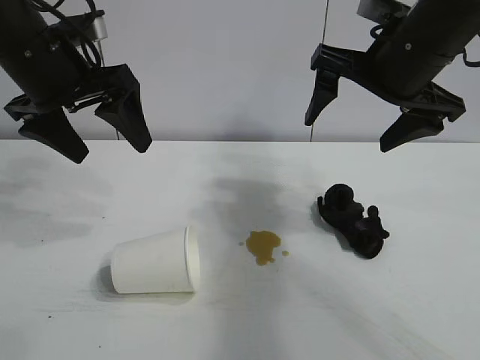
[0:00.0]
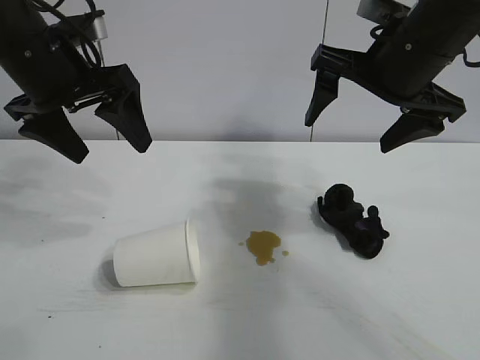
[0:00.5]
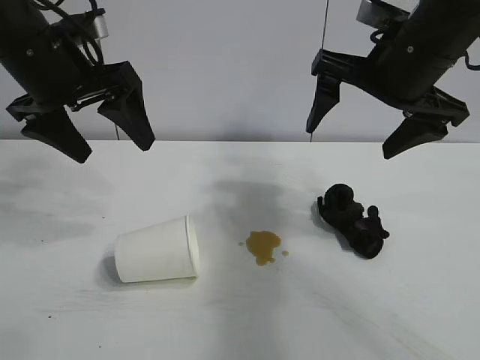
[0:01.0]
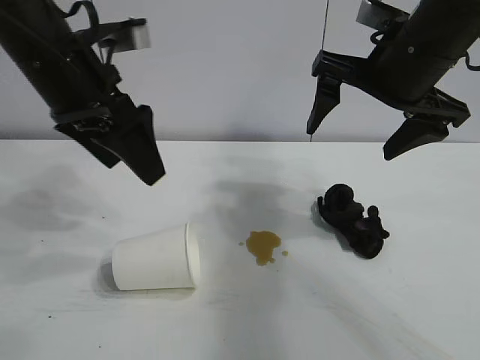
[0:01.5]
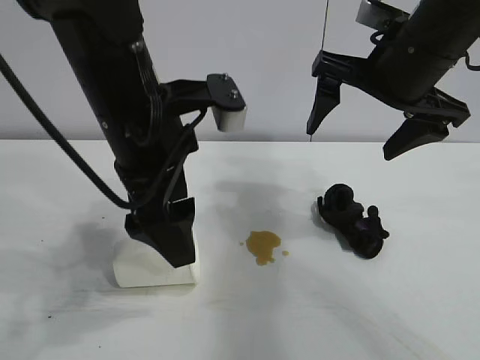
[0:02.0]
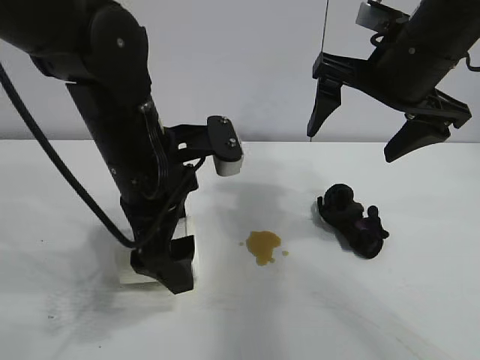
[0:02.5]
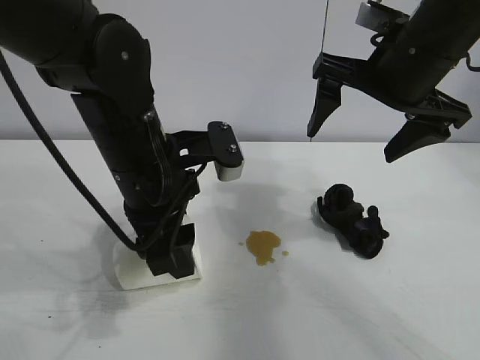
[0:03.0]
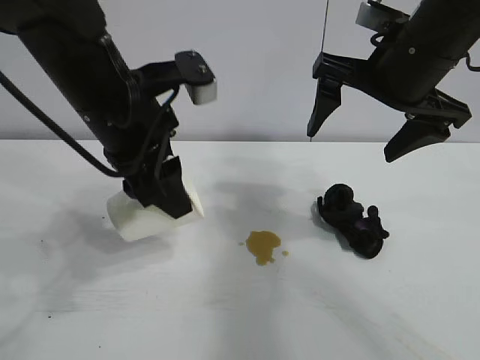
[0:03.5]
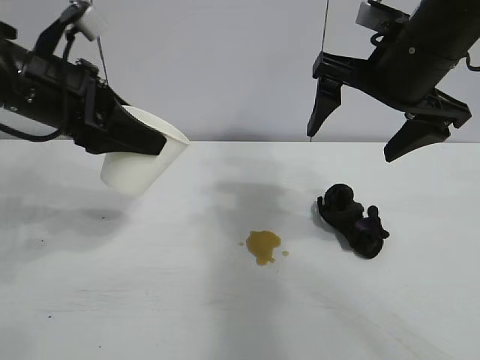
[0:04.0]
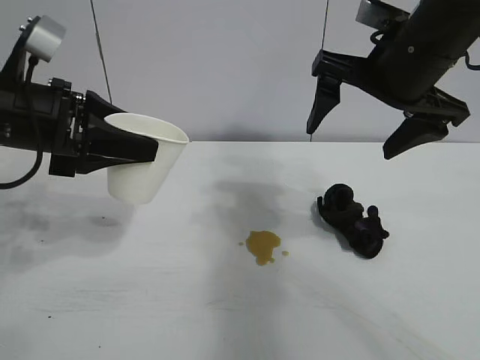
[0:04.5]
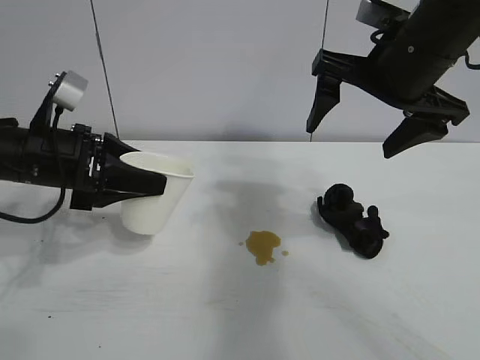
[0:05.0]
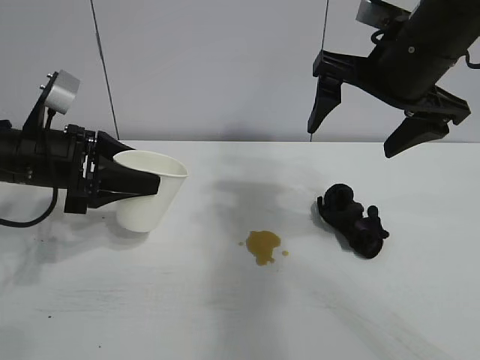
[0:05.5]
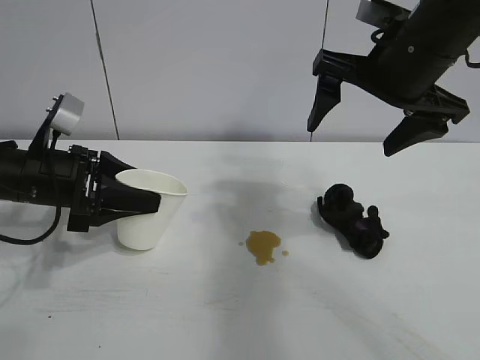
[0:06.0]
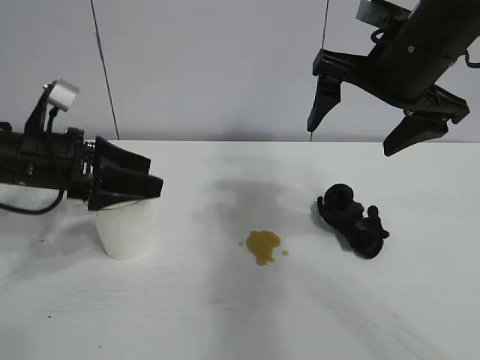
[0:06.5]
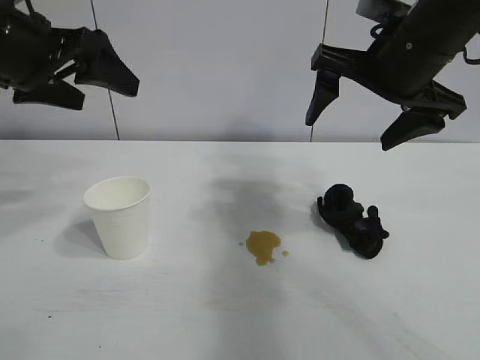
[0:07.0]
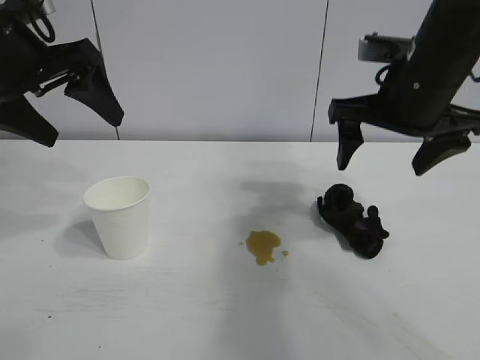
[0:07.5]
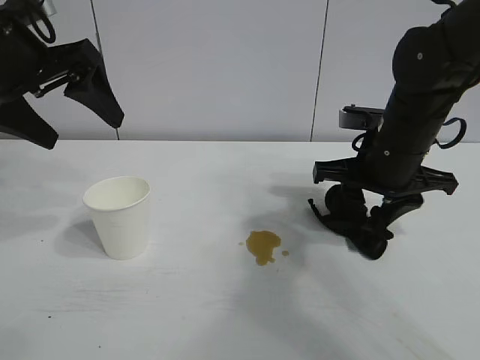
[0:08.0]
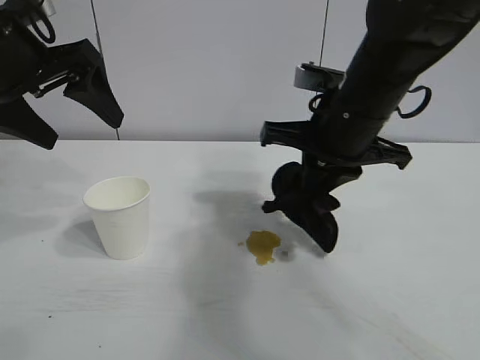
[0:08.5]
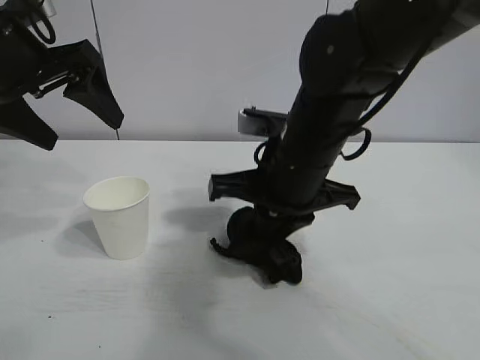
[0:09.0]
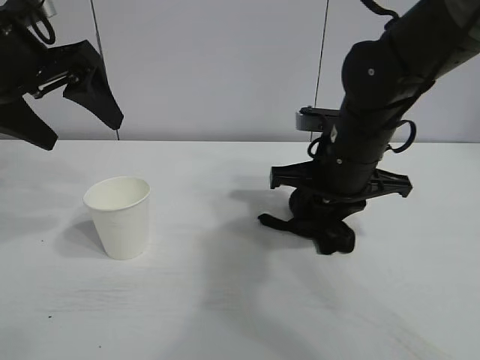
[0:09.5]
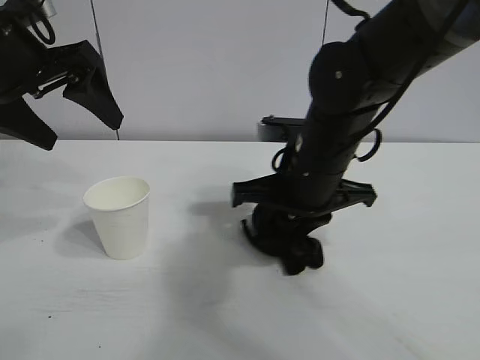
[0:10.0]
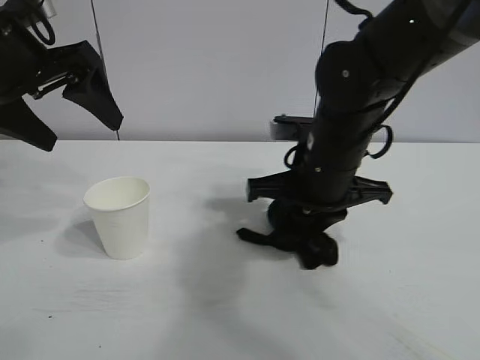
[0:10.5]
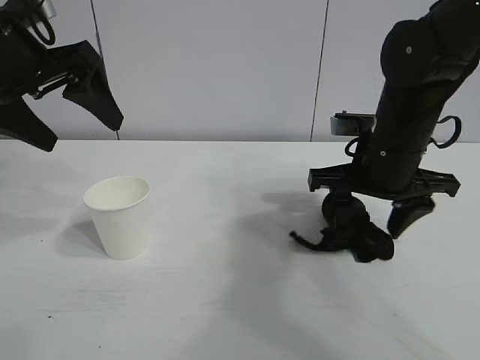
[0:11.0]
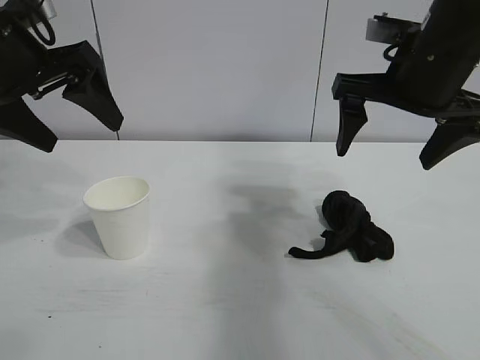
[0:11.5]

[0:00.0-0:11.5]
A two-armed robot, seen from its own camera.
Task of the whole recording: the left gripper pick up the fallen cup and place it upright, the right gripper grasp the black rag and wipe the stain on the table, the right gripper put the black rag back in its original position.
Step, 0:01.5 to 0:02.5: Grasp the paper cup with left gripper.
Step, 0:03.0 to 0:06.0: Stand the paper cup upright with left gripper.
Step, 0:06.5 to 0:08.0: Grasp the rag with right gripper.
Step, 0:08.5 to 0:10.5: Wipe the stains off the table with the rag with right gripper.
